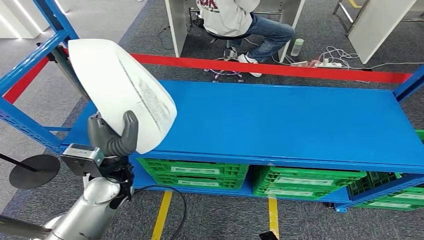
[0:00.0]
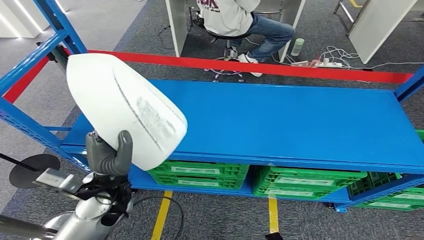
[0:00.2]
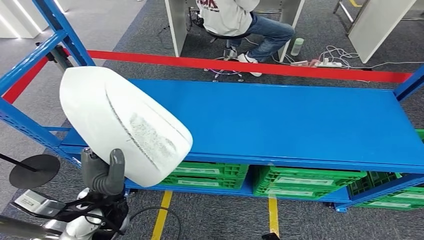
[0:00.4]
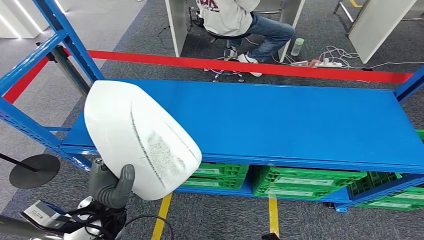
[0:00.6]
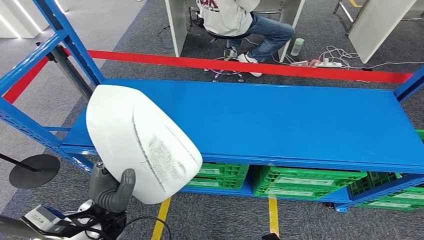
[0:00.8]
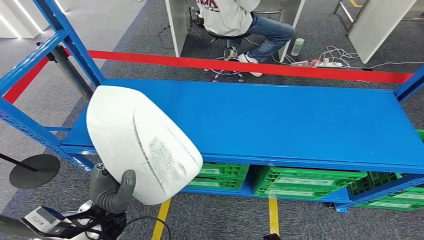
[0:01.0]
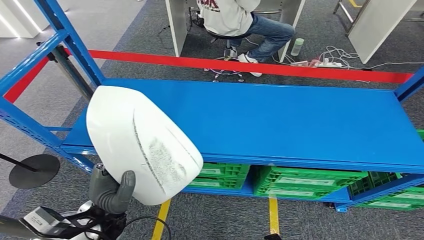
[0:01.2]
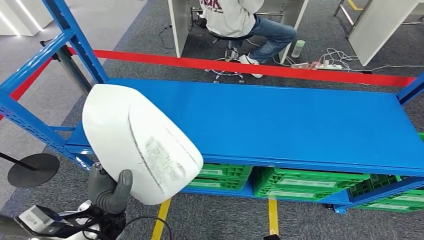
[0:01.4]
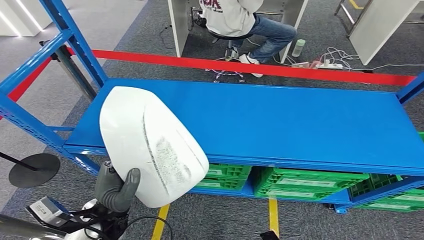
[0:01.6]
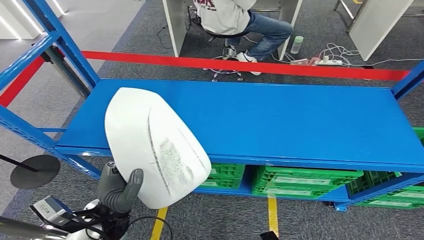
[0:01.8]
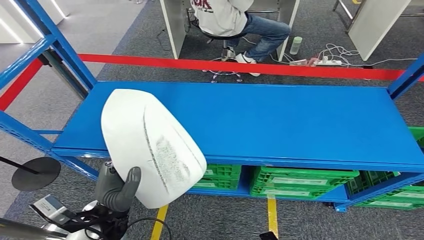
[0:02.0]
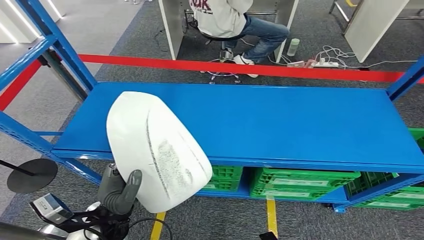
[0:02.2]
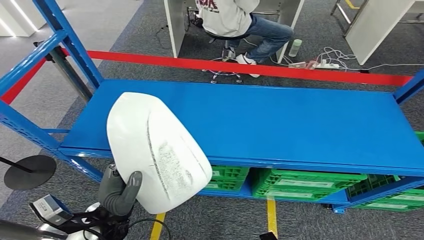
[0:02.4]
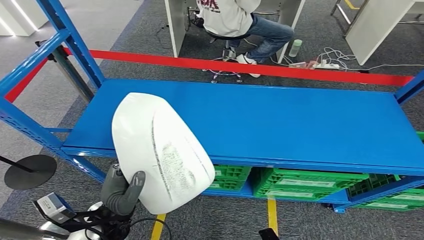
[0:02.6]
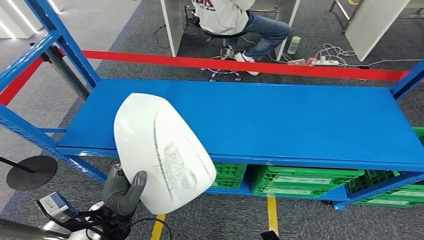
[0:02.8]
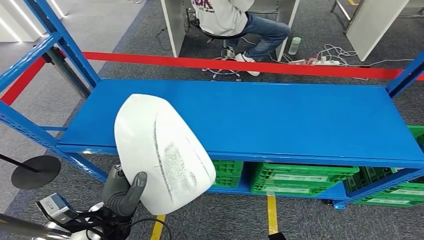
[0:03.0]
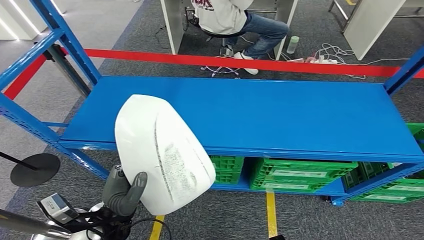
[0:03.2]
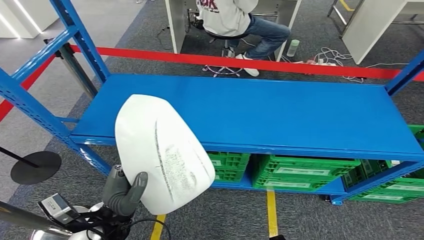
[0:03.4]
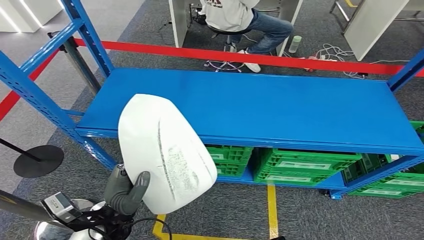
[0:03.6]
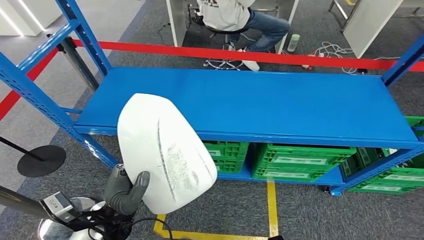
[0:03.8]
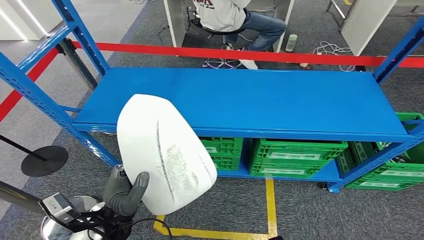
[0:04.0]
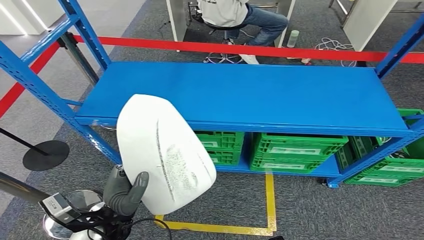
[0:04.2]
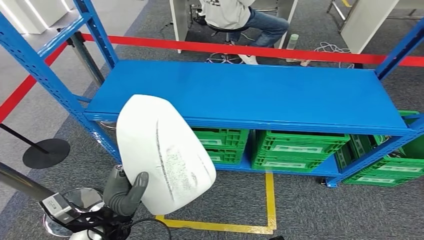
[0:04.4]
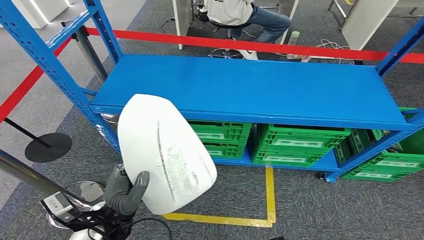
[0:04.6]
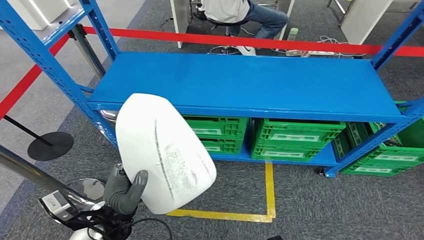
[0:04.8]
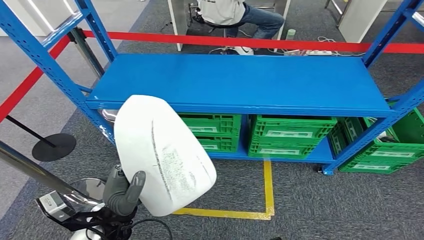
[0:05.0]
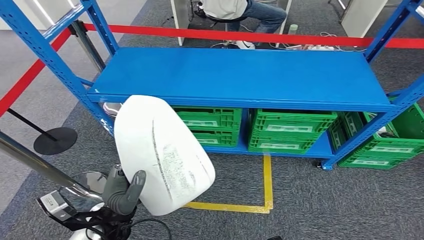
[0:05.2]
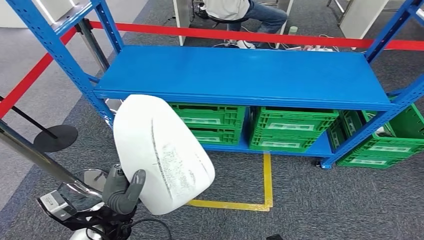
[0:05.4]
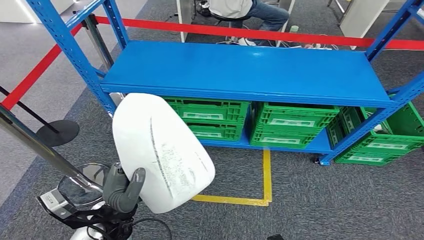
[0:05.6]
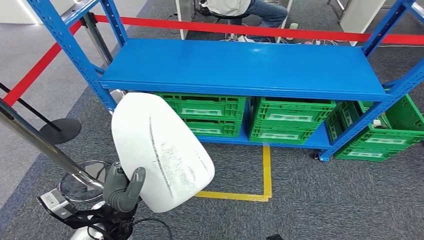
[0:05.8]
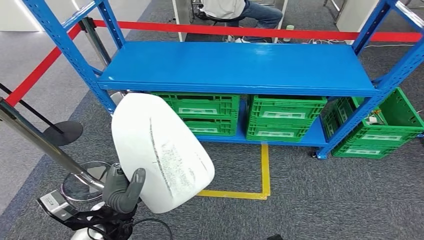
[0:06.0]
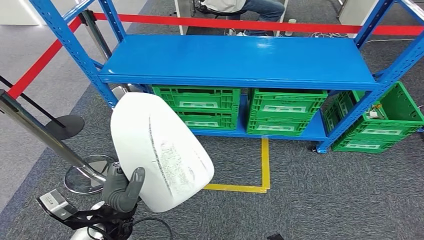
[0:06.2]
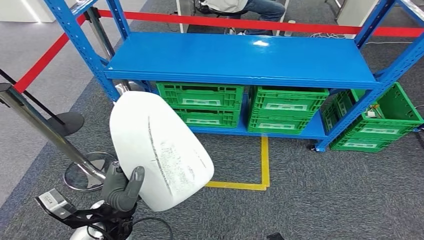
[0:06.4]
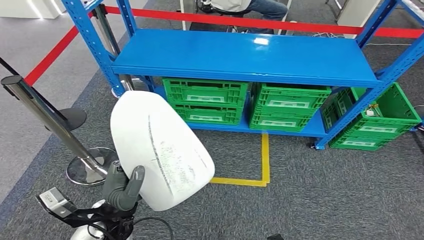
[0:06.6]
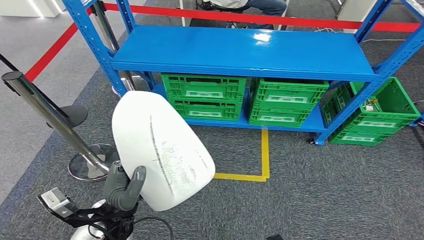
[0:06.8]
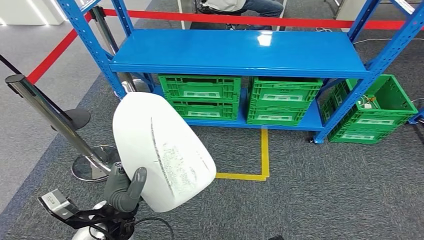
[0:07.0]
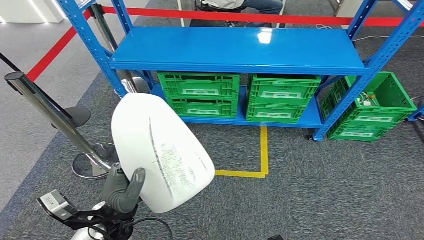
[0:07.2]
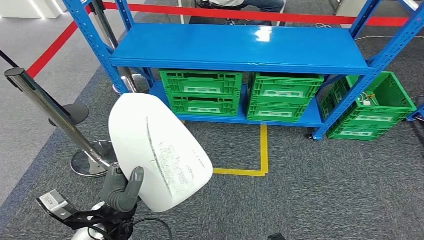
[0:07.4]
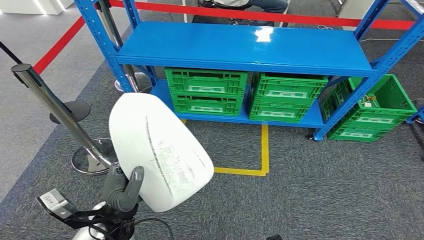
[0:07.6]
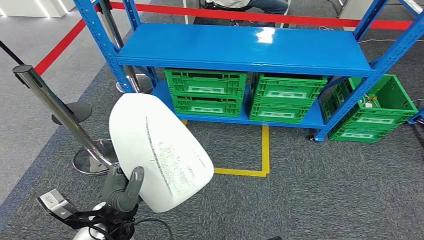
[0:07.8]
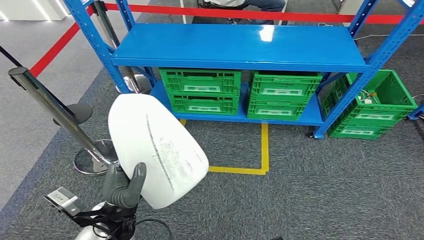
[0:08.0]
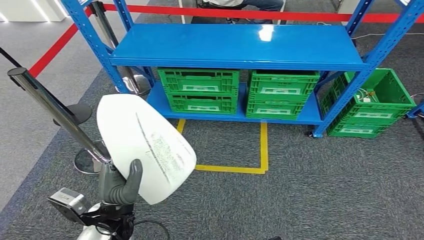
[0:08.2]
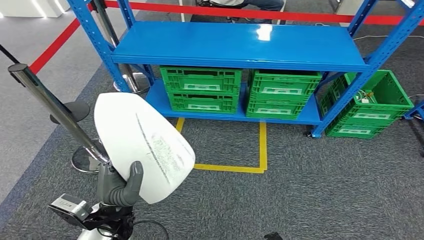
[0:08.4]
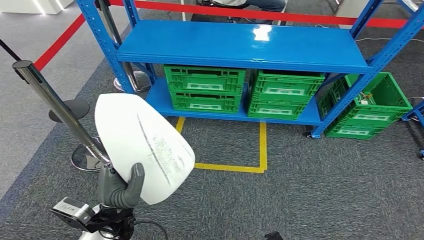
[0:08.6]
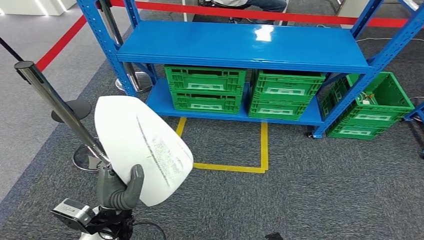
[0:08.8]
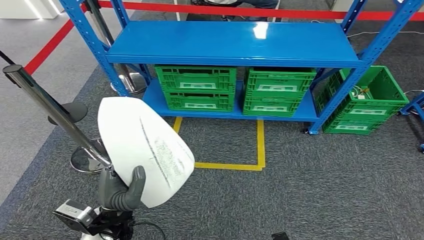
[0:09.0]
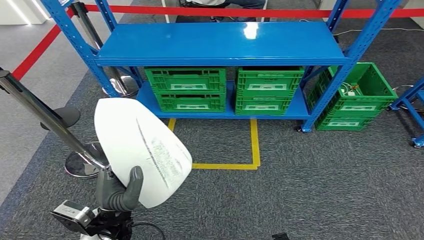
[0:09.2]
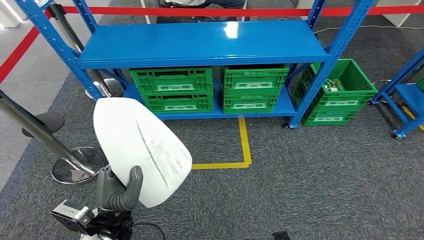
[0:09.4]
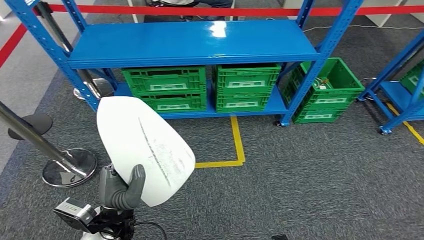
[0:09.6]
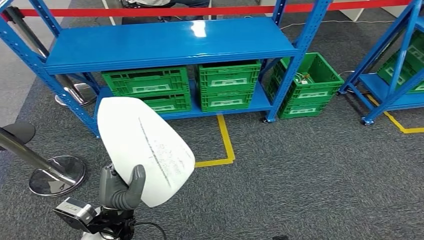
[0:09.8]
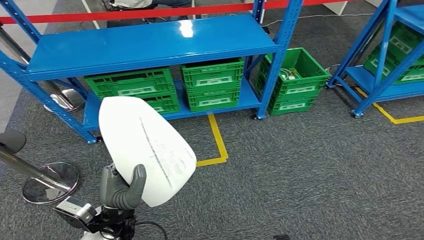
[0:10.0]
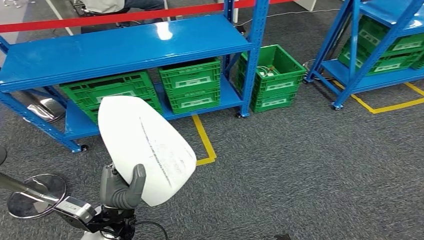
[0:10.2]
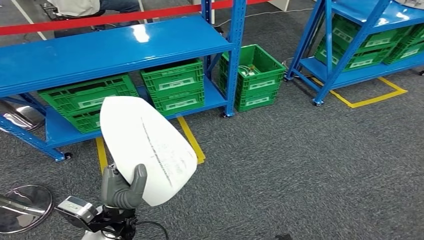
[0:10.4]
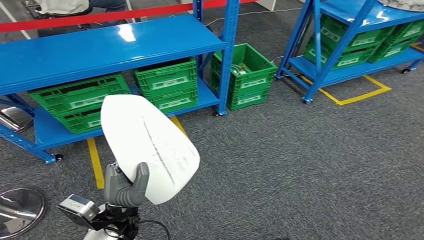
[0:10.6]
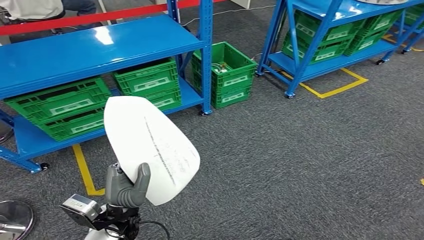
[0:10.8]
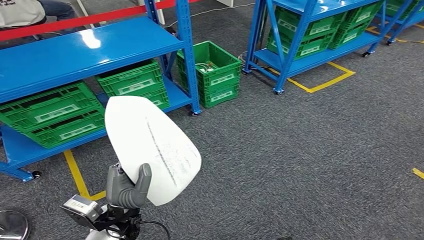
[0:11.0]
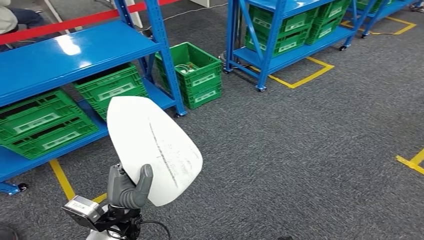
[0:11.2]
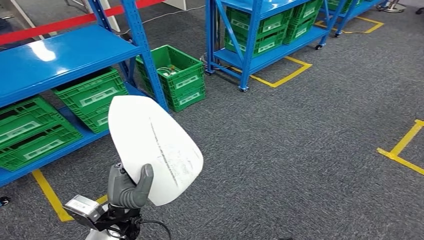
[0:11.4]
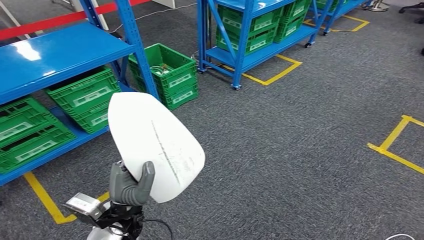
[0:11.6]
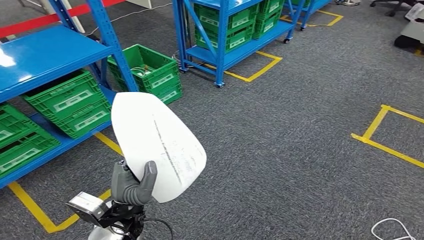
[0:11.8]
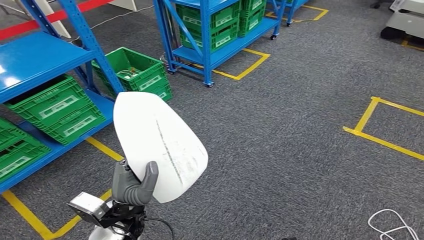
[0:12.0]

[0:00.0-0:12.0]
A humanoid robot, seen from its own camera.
Step, 0:00.0 to 0:02.0: Pick up the small component from the shelf.

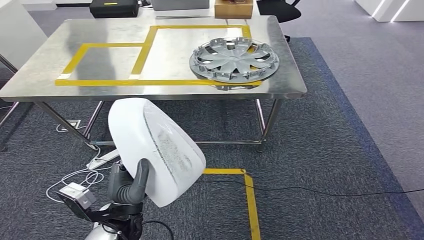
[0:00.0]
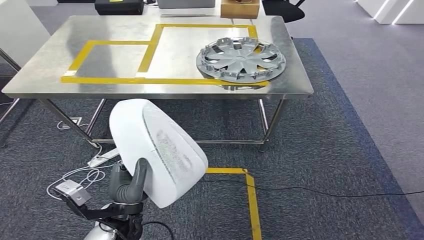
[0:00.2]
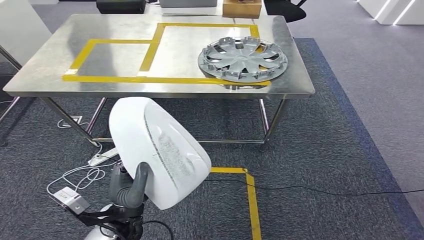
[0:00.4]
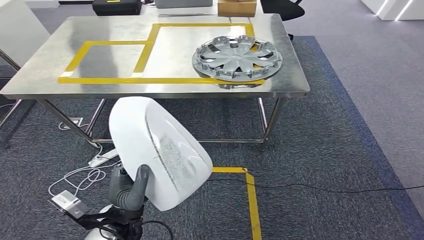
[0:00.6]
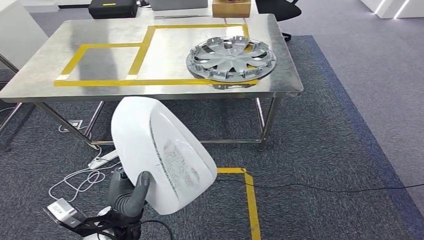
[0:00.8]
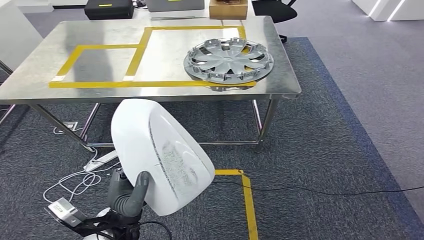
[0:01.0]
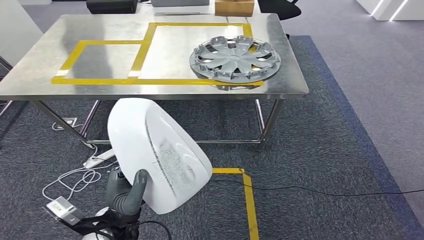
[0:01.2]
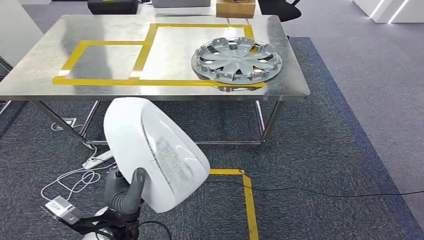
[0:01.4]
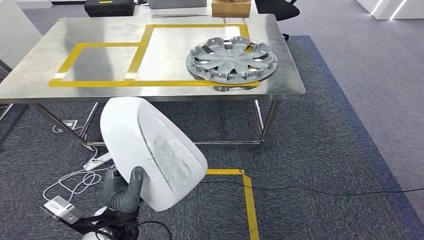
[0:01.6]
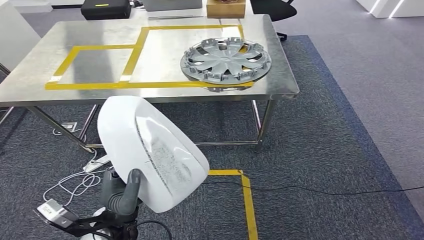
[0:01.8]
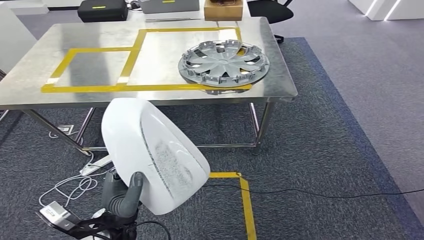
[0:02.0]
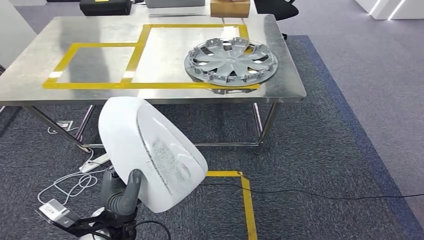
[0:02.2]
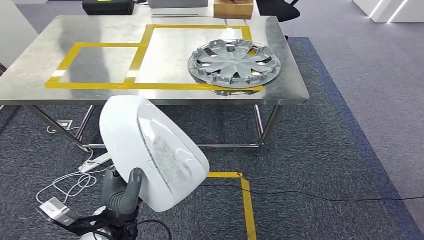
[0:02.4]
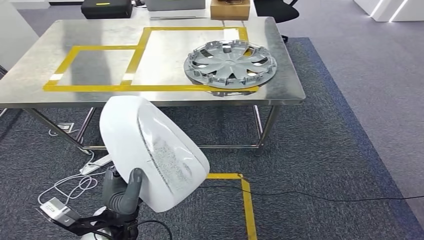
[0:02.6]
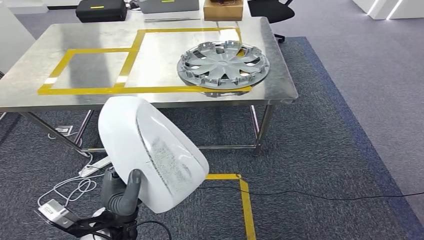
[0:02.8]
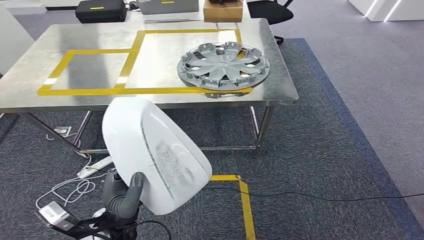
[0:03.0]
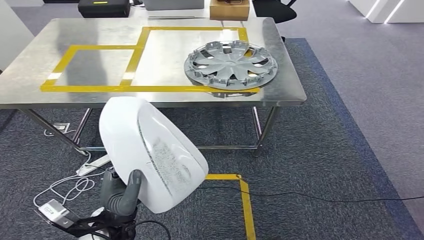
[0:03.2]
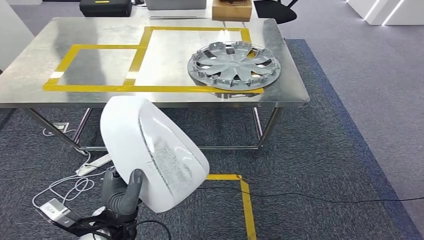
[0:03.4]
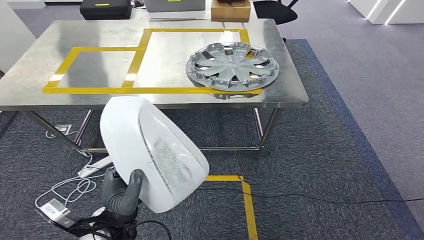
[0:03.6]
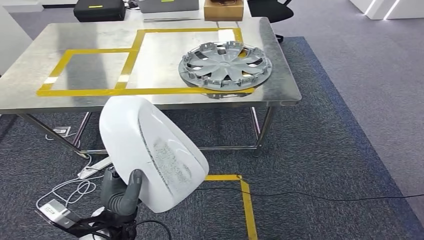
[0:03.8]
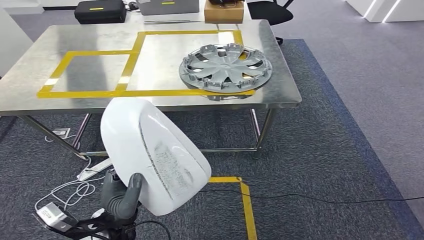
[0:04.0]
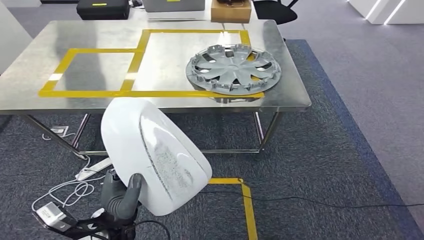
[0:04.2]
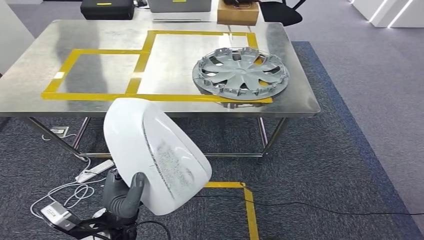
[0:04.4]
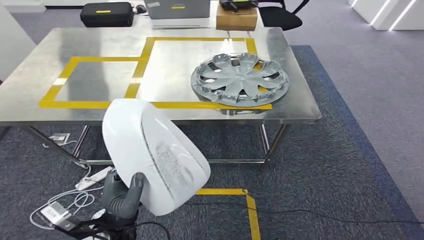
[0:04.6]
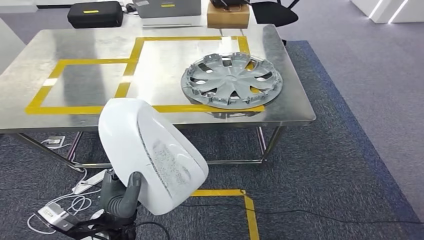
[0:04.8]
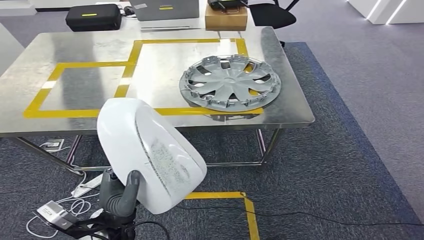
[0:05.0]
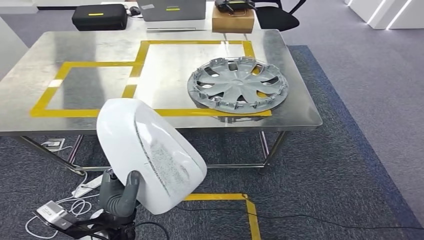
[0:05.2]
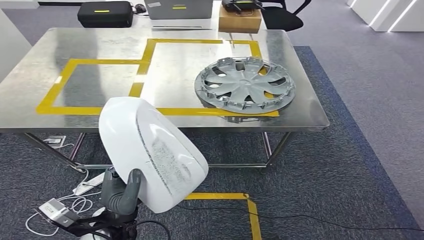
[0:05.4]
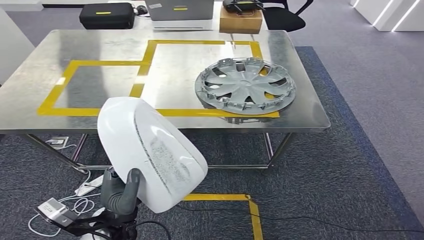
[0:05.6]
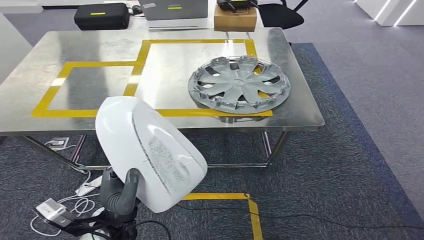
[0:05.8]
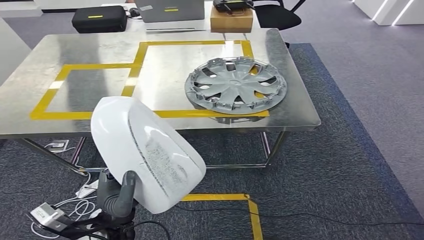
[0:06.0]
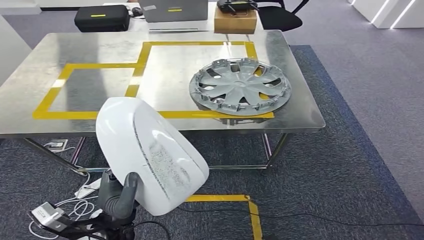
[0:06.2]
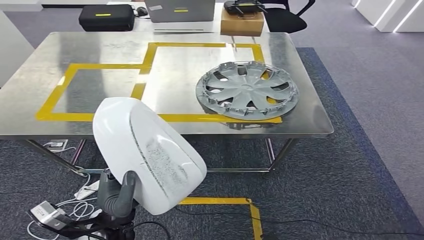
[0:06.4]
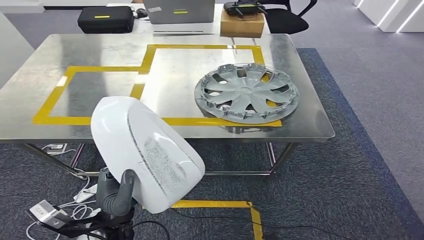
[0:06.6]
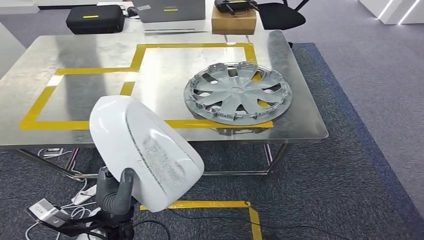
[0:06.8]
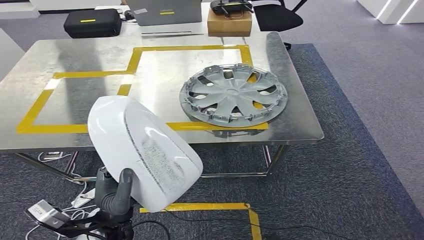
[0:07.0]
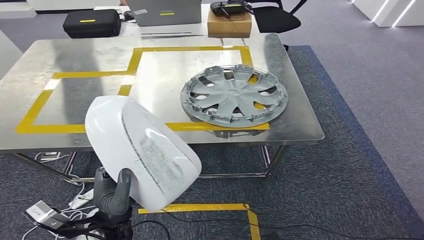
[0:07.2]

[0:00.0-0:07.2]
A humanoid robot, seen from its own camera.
Step, 0:00.0 to 0:05.4: Move the small component to the workbench.
0:00.0 to 0:01.4: The hands move only a little.
